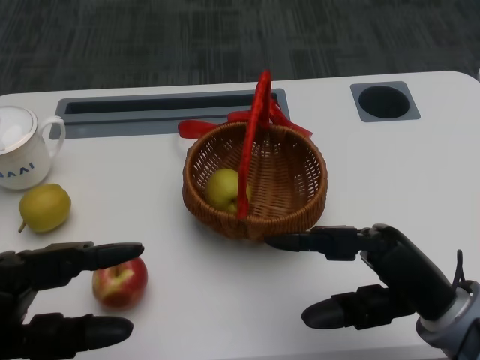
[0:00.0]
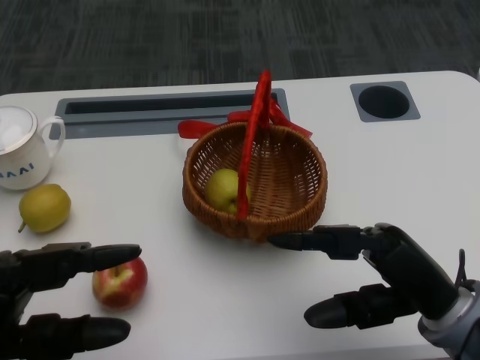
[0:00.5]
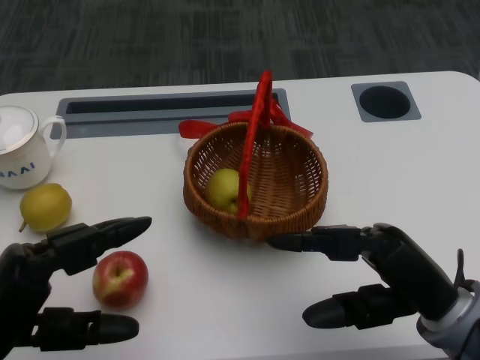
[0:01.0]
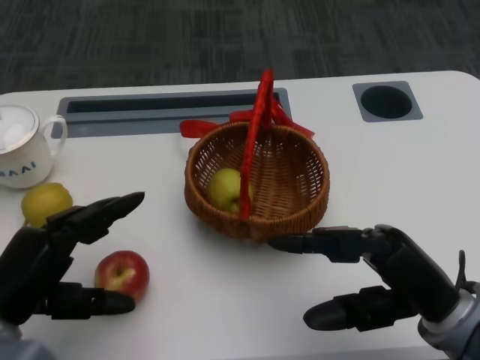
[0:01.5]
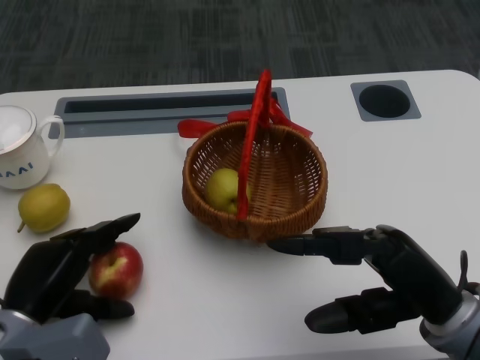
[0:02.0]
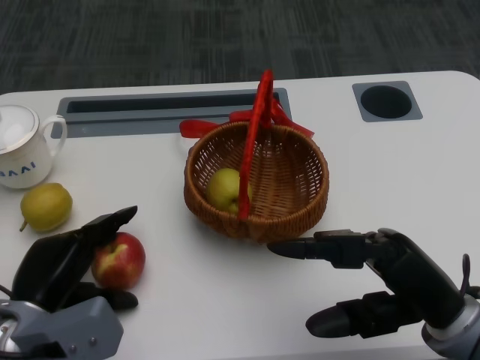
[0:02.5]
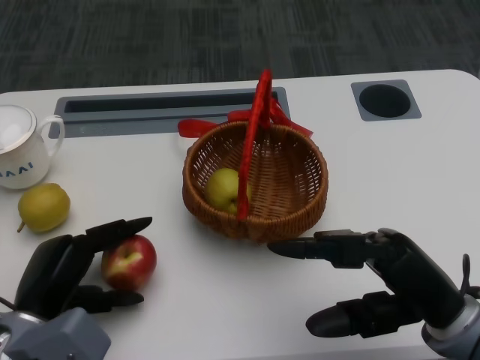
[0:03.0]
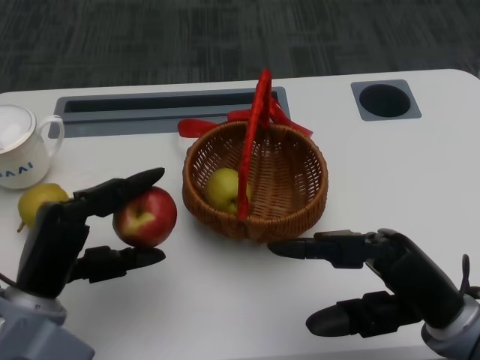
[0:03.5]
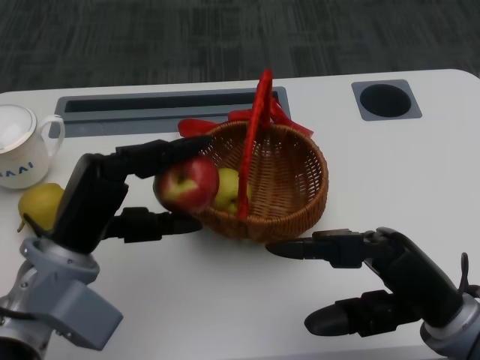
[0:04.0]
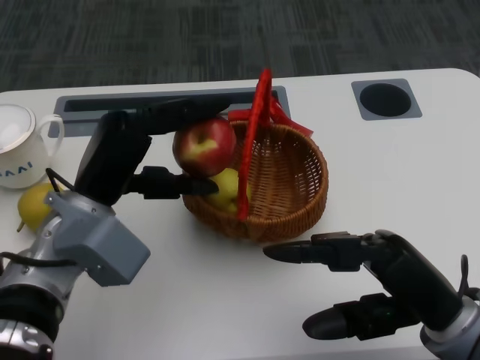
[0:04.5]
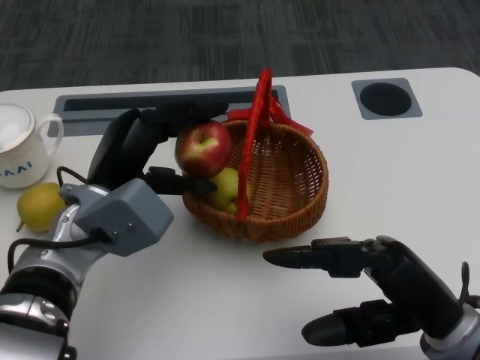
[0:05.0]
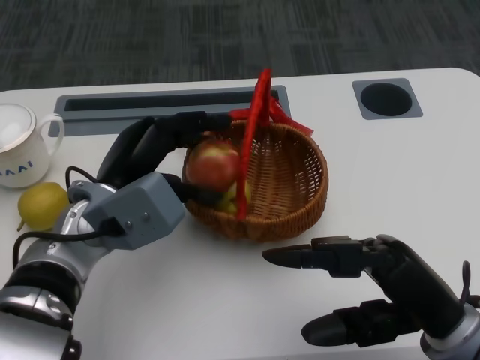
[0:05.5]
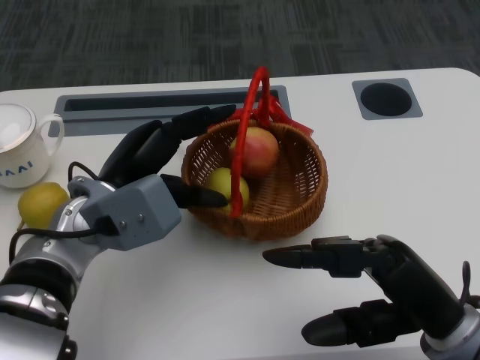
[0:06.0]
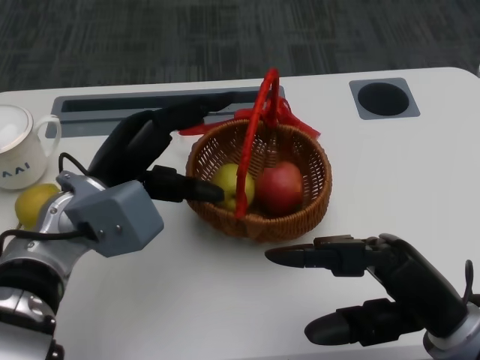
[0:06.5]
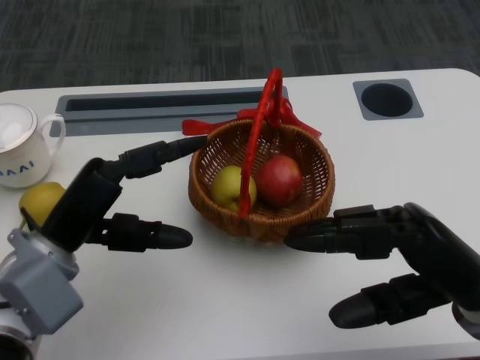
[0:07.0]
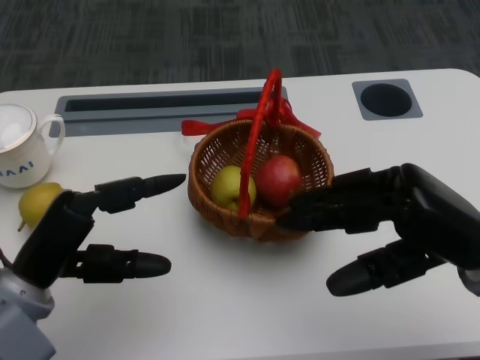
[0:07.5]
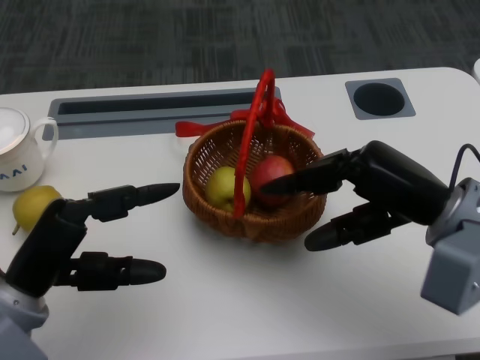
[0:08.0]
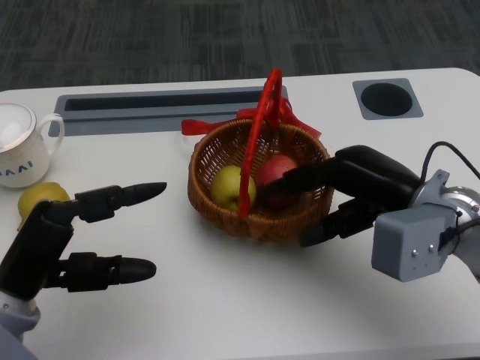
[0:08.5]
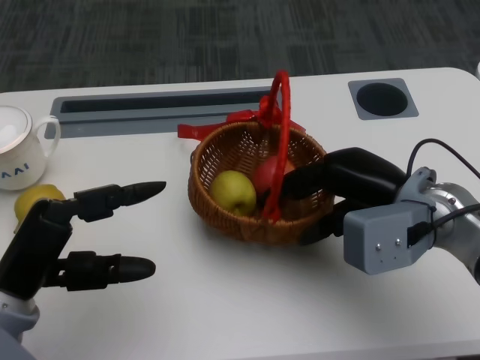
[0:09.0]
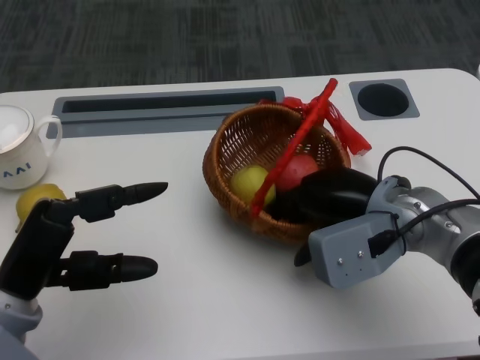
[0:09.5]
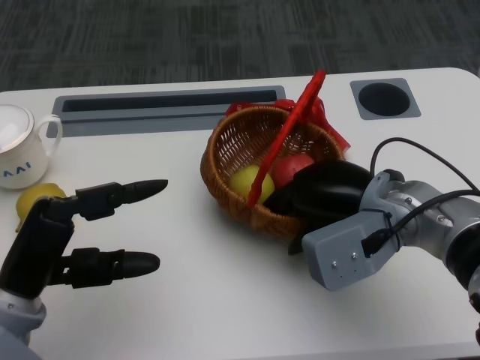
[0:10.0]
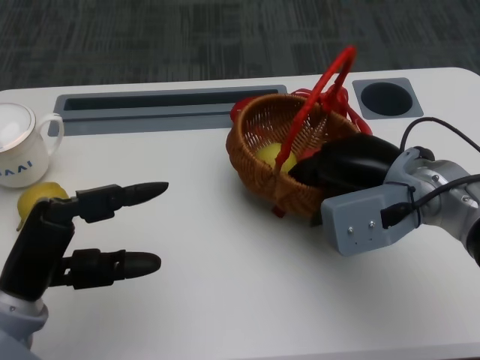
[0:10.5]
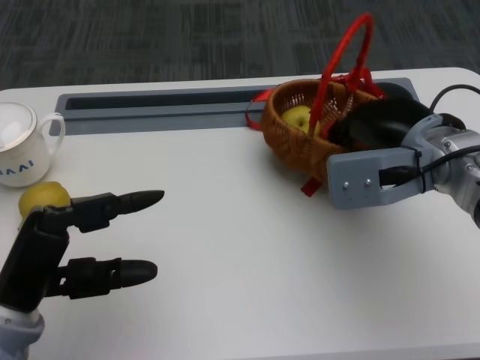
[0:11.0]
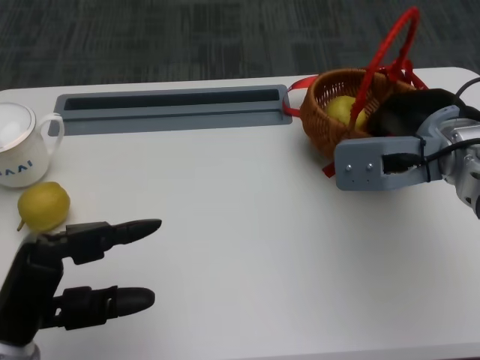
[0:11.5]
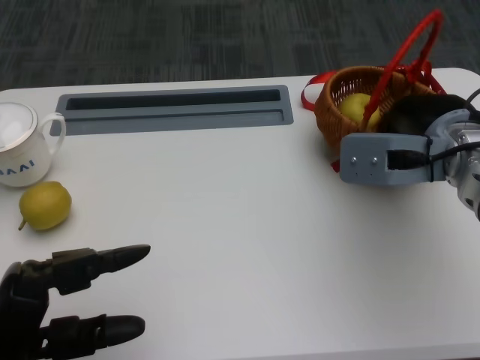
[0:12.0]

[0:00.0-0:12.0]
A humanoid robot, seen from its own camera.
Step, 0:01.0 to 0:02.0: Grasp the apple with the left gripper.
Step, 0:02.5 to 0:04.5: Place the apple into the basket with the left gripper.
Step, 0:05.5 to 0:08.0: Grasp the basket with the right gripper.
Step, 0:08.5 to 0:10.5: Move the basket to the front of the table with the right gripper.
0:02.0 to 0:04.0: The left hand moves upward and to the right, about 10 cm.
0:04.0 to 0:06.0: The left hand heads forward, covering some 5 cm.
0:06.0 to 0:08.0: The left hand goes some 10 cm backward and to the left; the right hand moves forward, some 10 cm.
0:08.0 to 0:10.0: The right hand goes some 5 cm to the left.
0:10.0 to 0:12.0: The left hand heads backward, covering some 5 cm. The right hand travels to the right by about 5 cm.

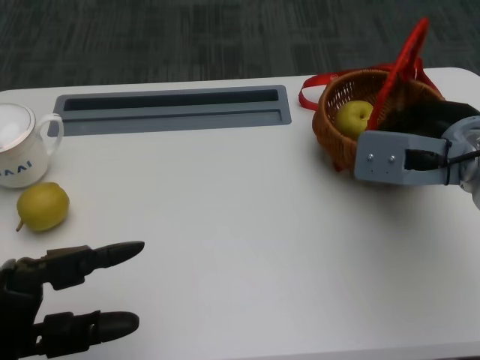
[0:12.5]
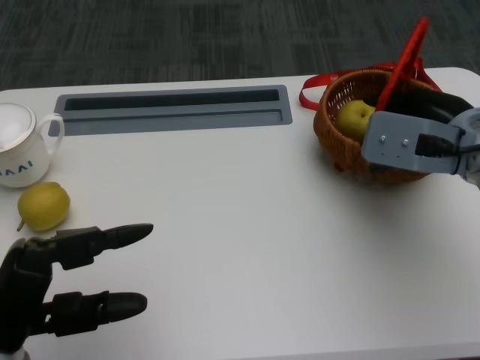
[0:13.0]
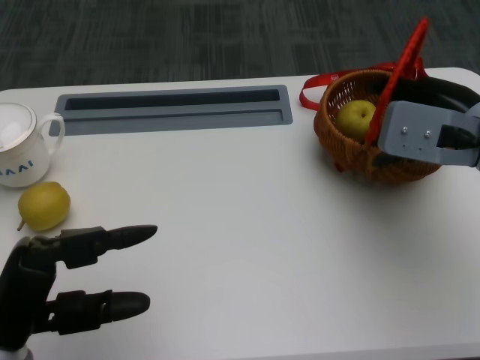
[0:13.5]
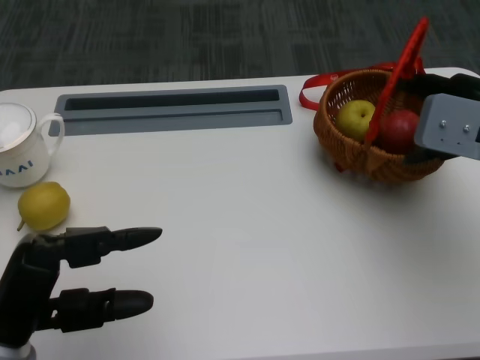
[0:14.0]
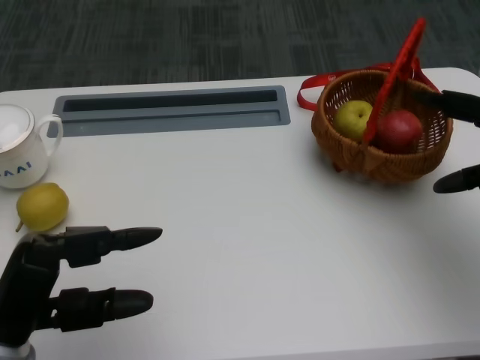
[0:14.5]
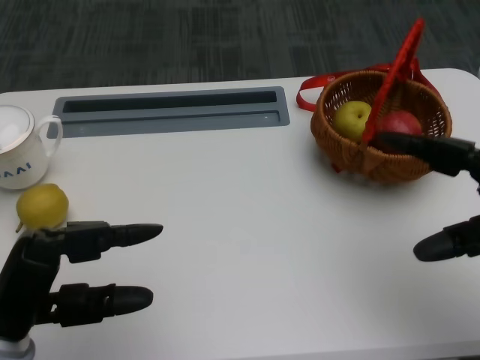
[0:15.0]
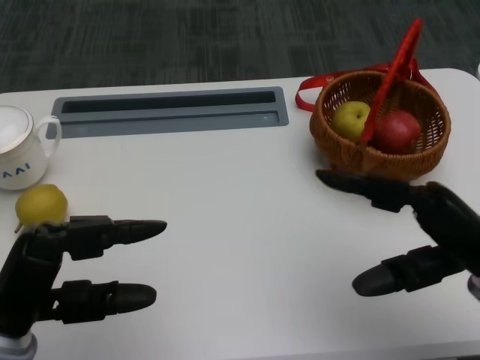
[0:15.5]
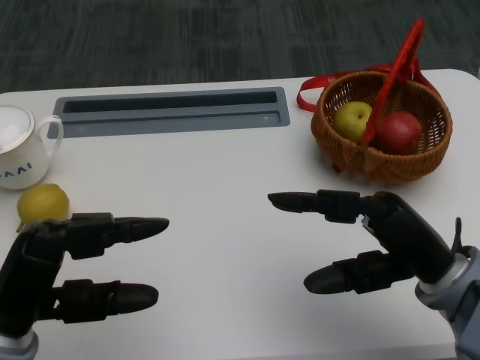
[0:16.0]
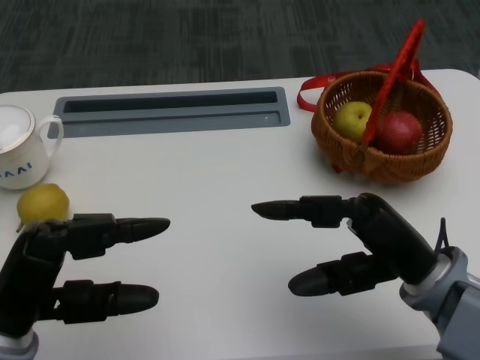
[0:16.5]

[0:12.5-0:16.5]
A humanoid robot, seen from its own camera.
0:12.5 to 0:14.5: The right hand heads to the right, covering roughly 10 cm.
0:14.5 to 0:16.5: The right hand travels to the left, backward and downward by some 15 cm.
